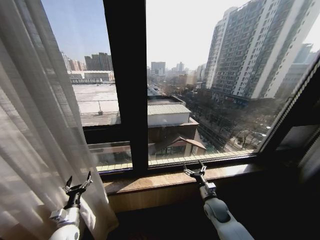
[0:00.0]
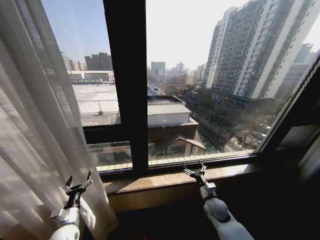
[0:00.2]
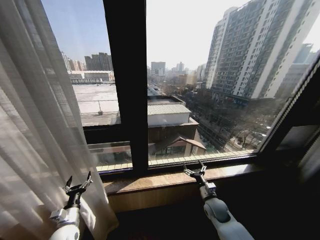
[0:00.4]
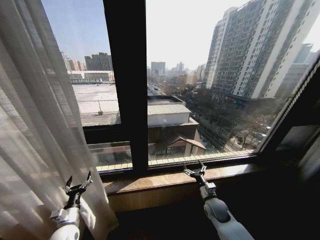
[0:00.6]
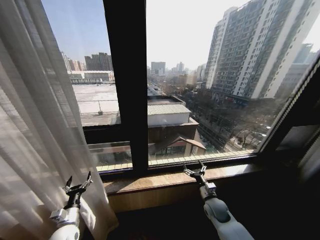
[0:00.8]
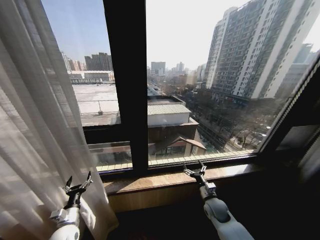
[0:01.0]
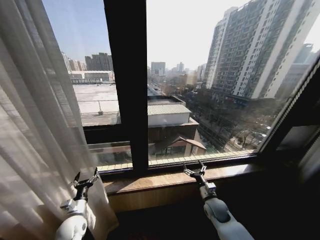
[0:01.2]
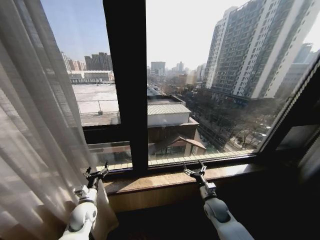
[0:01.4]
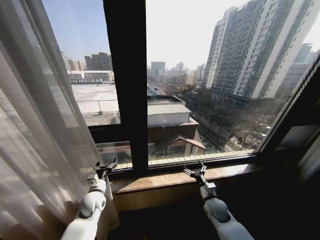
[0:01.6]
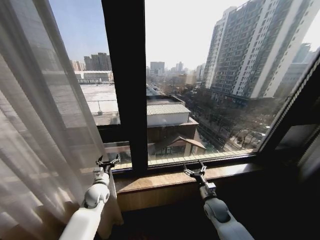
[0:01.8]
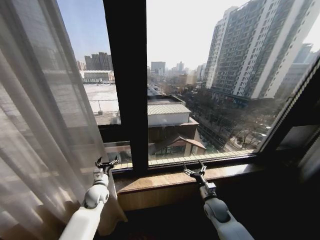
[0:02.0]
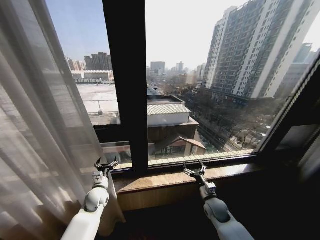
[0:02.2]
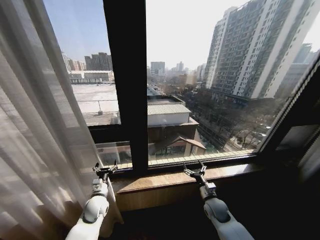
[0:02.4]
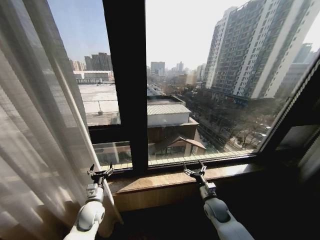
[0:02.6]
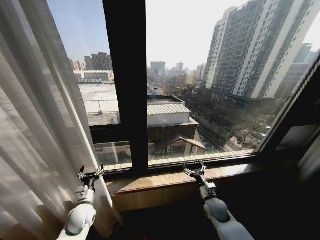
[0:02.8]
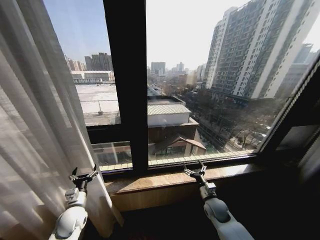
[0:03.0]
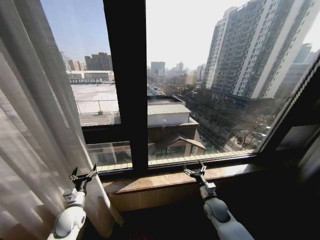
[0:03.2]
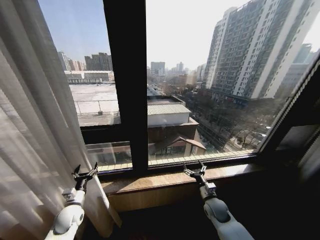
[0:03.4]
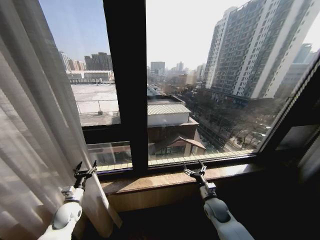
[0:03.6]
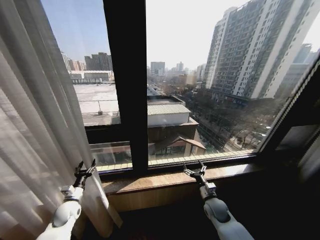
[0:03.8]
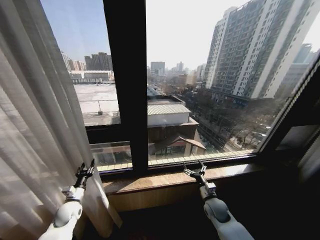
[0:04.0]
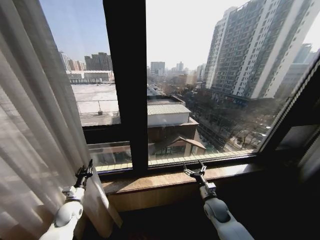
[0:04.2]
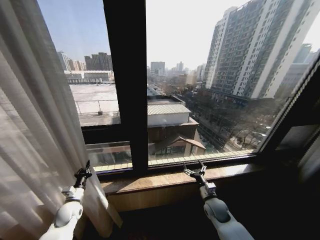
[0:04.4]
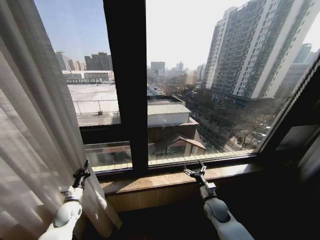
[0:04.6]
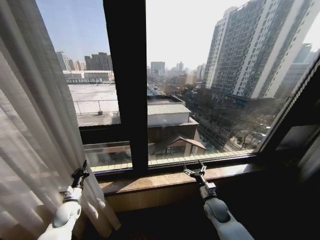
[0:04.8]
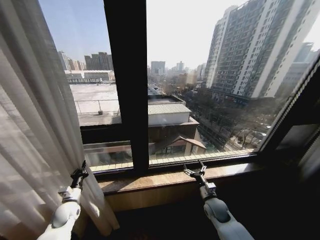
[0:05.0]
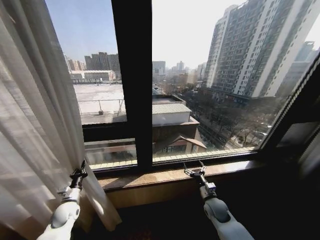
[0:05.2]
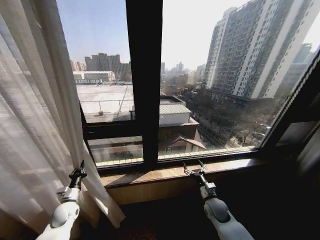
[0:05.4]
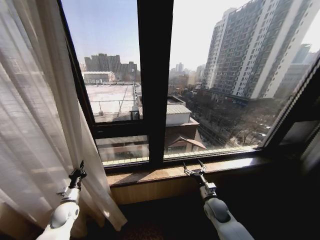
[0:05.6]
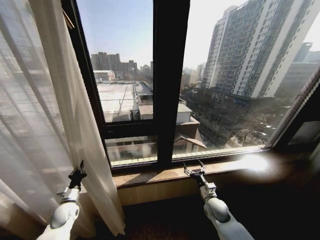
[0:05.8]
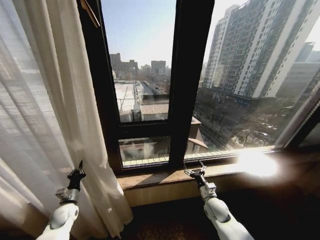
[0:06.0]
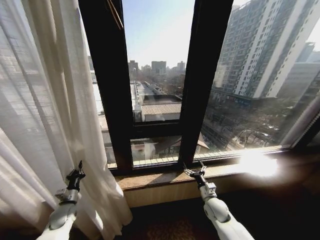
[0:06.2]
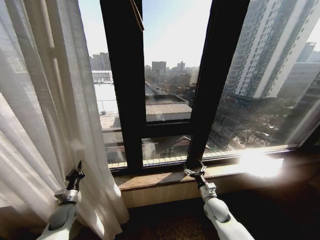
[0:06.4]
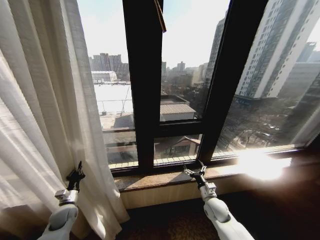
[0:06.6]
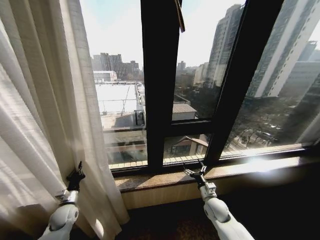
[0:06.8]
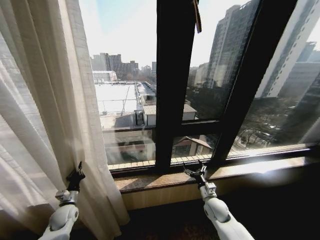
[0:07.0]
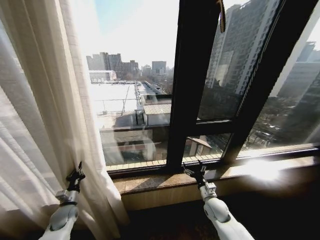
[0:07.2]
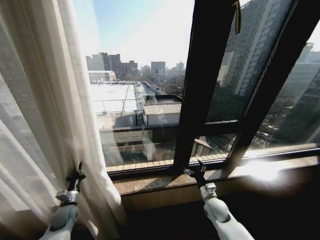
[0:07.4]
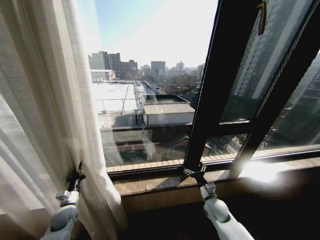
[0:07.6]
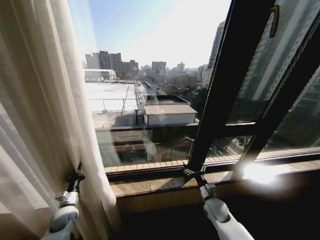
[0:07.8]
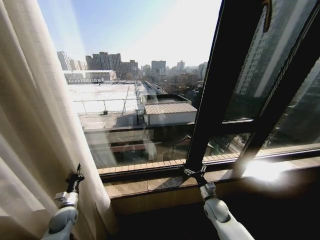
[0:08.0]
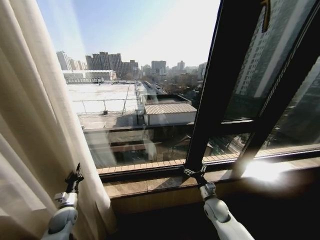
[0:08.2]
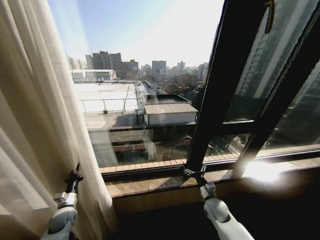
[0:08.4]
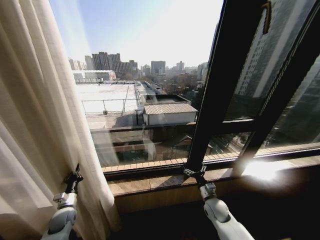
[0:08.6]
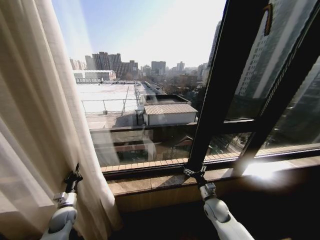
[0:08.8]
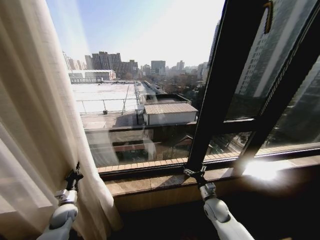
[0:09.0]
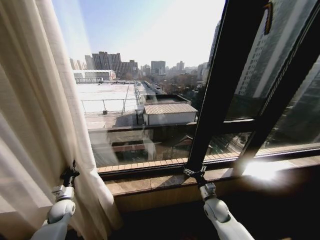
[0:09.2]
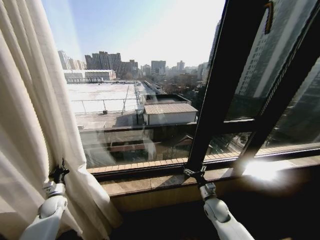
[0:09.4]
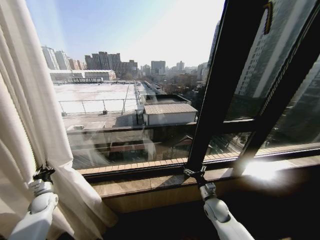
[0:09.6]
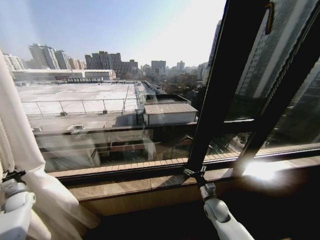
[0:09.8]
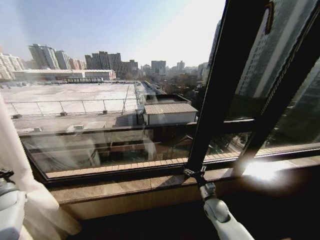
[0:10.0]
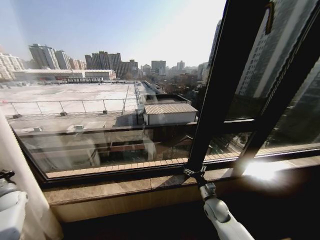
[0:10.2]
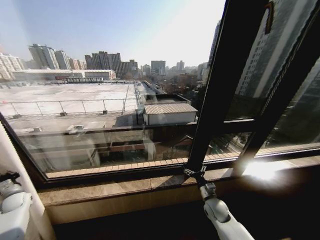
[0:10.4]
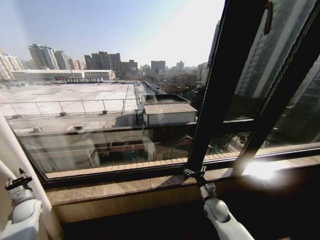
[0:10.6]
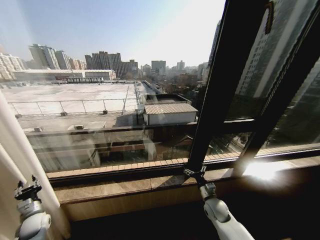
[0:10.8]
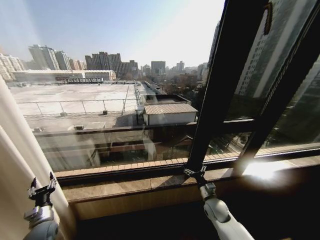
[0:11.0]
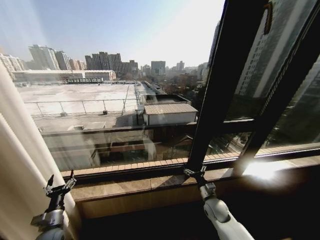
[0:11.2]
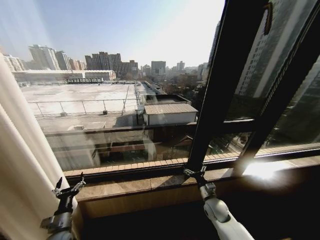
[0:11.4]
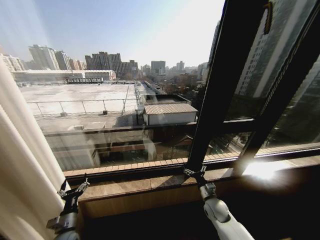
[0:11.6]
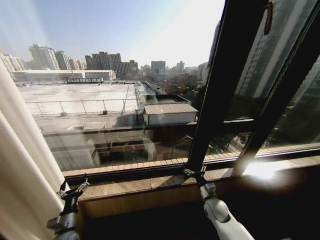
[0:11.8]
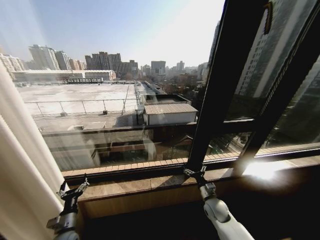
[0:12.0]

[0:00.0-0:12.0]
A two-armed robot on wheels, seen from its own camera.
Task of the whole recording: Open the curtains by pulling them apart, changing their state from closed to fully open.
0:00.0 to 0:01.6: The left gripper goes some 15 cm forward, to the right and upward.
0:01.6 to 0:03.0: The left gripper is displaced backward and to the left by about 5 cm.
0:03.0 to 0:04.4: The left gripper shifts about 5 cm to the left, and closes up.
0:09.0 to 0:10.4: The left gripper shifts some 25 cm to the left.
0:10.4 to 0:12.0: The left gripper heads to the right and backward, covering approximately 30 cm, and opens up.

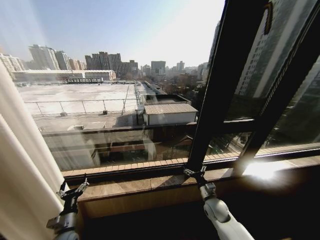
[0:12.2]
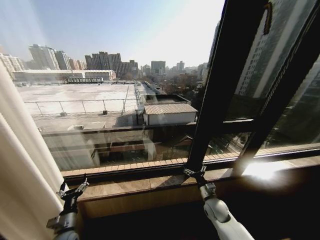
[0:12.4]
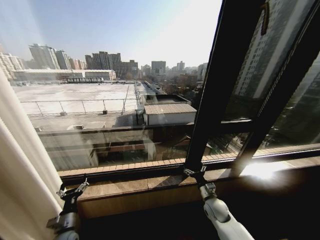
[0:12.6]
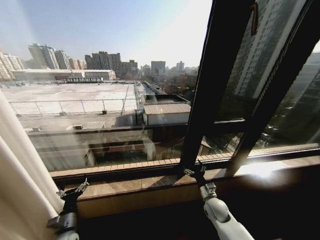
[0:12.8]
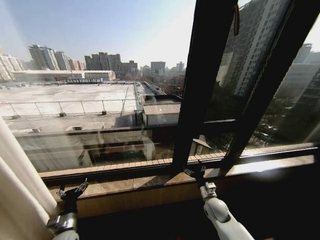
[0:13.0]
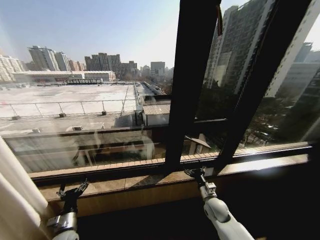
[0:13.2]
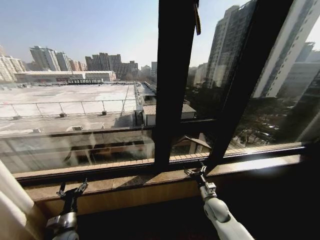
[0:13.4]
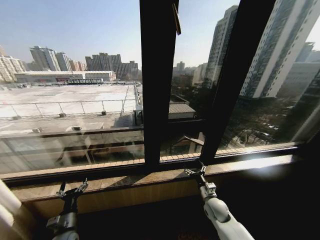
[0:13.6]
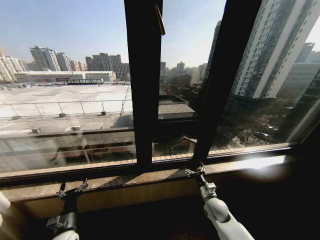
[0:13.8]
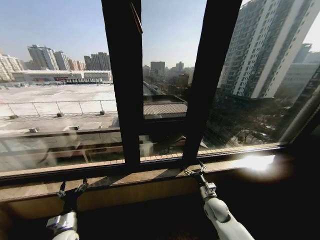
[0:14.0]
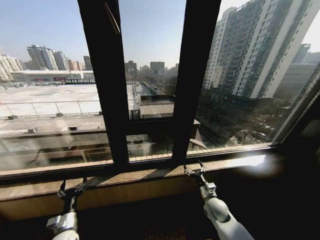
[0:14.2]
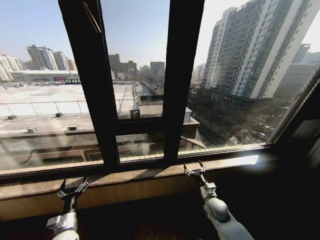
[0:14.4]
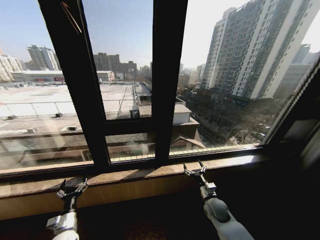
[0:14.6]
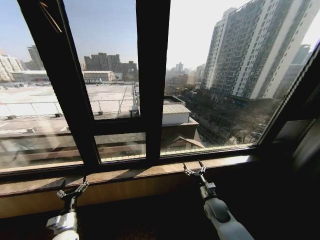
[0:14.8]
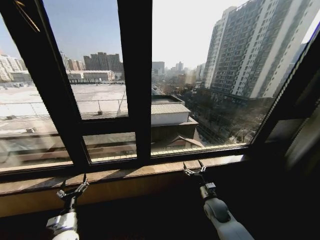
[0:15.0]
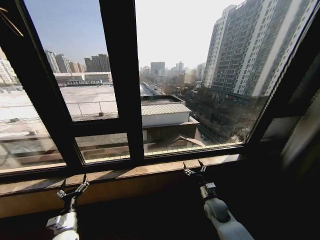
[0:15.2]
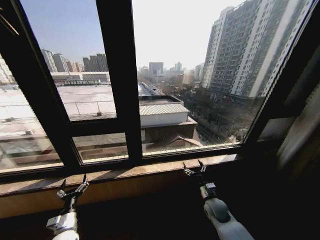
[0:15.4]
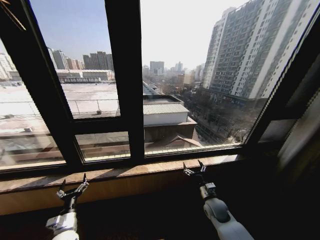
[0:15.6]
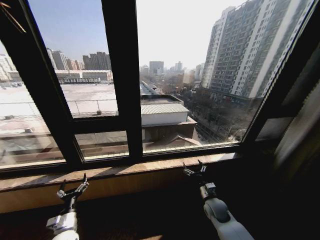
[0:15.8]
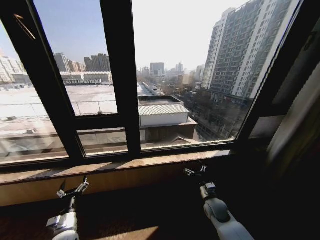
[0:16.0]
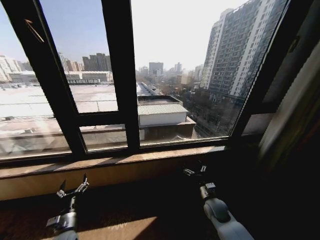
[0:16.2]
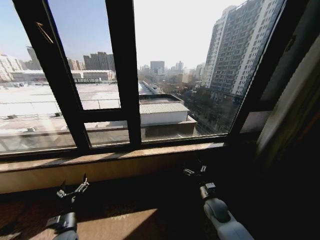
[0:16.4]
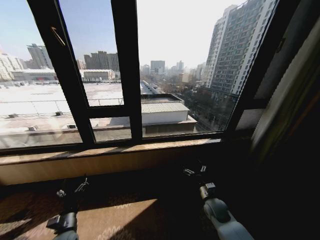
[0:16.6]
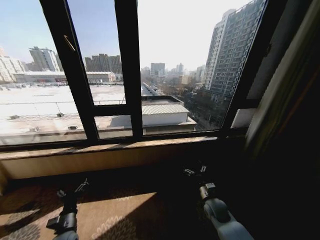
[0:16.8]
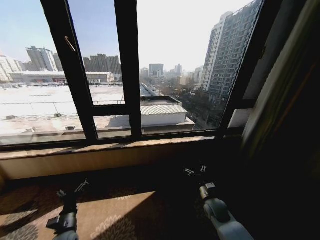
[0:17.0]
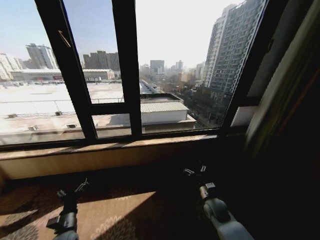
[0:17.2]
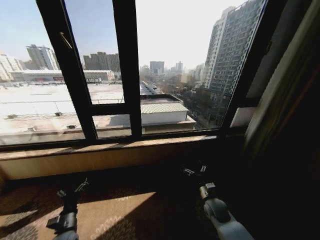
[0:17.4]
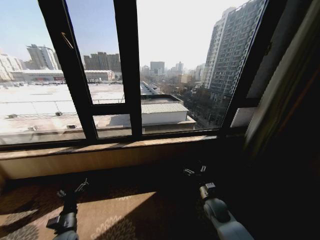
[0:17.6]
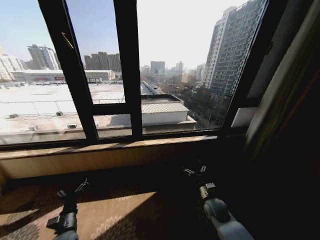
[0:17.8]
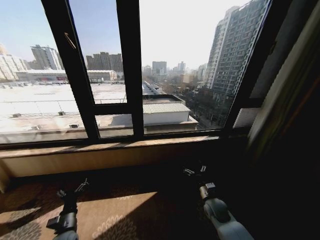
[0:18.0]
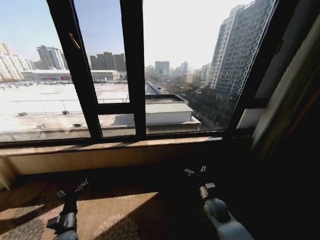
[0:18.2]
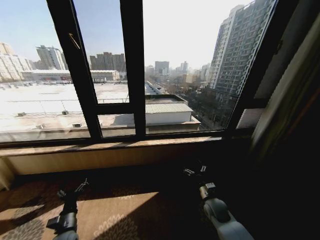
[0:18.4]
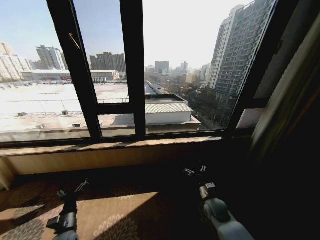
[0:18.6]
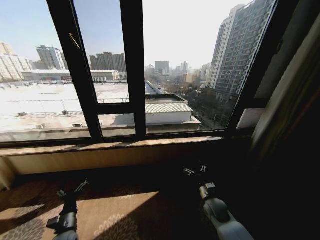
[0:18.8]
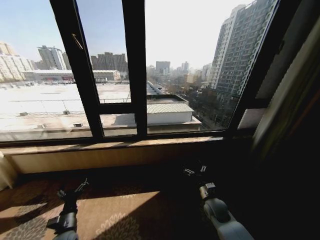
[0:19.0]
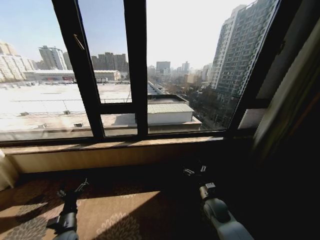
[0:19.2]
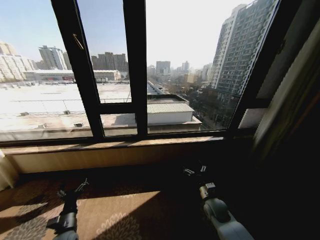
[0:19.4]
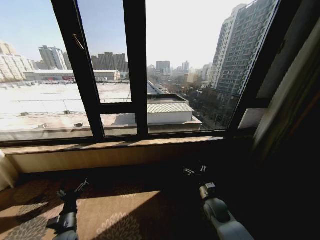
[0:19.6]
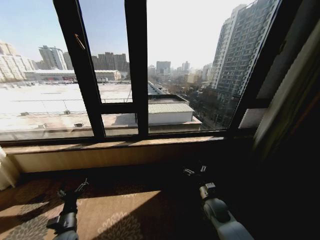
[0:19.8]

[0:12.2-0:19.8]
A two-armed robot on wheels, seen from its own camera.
Task of the whole recording: Open the curtains by pulling them apart, changing their state from closed to fully open.
0:18.2 to 0:19.8: Both grippers stay put.

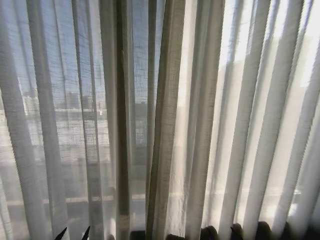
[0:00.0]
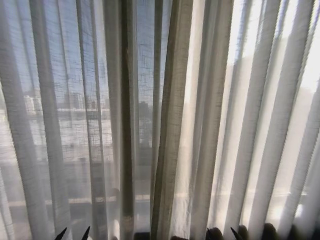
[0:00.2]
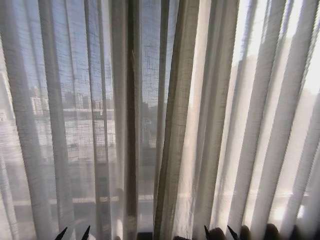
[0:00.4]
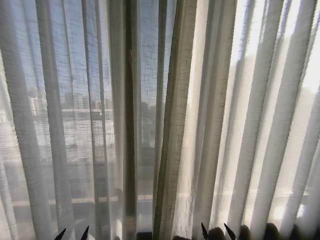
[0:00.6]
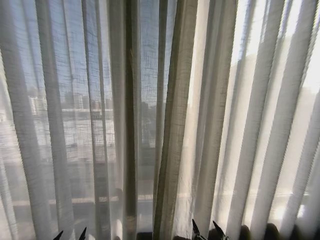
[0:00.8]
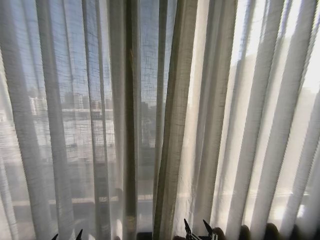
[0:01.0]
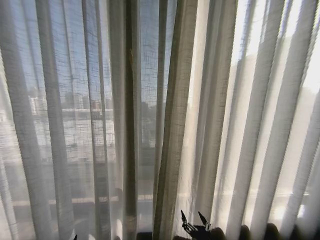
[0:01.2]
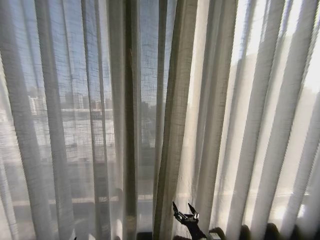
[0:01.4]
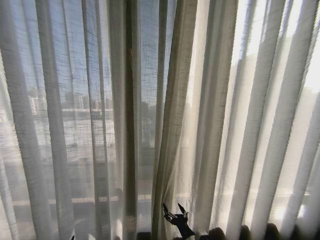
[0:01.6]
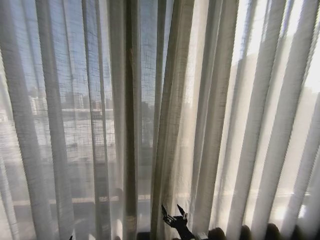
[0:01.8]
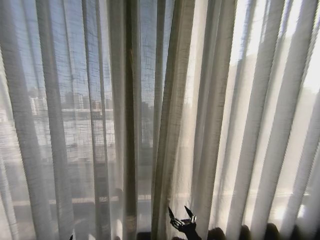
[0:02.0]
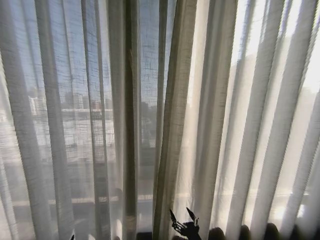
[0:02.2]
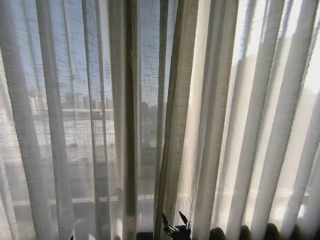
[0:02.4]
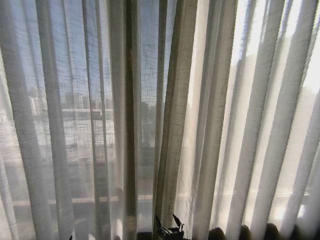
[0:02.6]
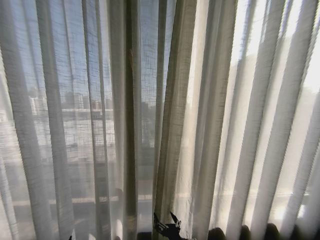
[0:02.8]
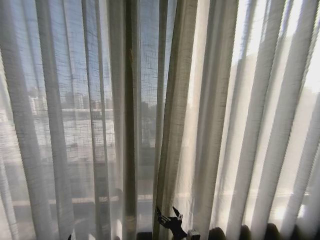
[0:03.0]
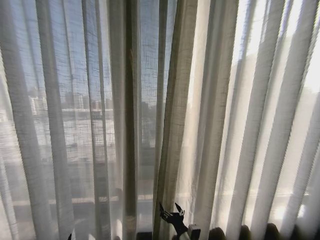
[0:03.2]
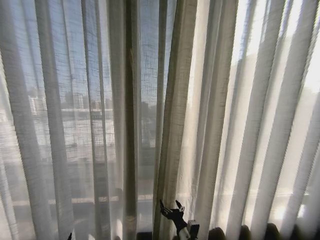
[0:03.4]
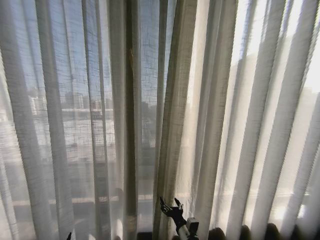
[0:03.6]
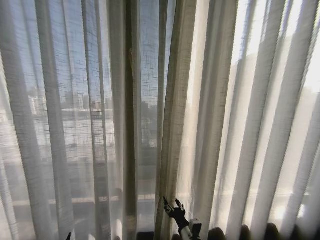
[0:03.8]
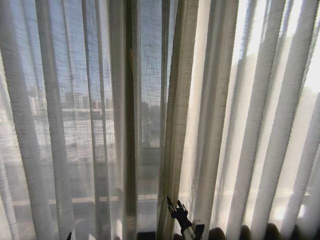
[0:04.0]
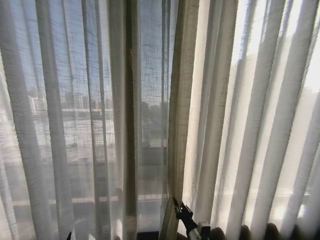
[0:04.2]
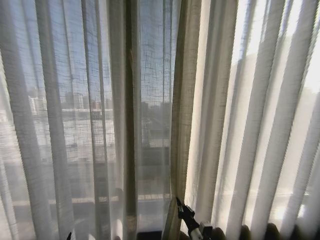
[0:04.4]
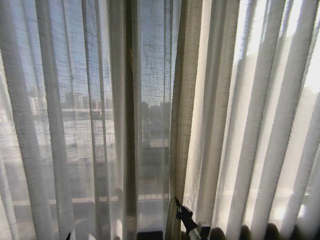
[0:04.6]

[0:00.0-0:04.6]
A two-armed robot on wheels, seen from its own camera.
Task of the whole recording: Open the curtains by pulling them apart, changing their state from closed to fully open.
0:00.0 to 0:01.6: The right gripper moves forward and to the left, approximately 20 cm.
0:03.0 to 0:04.6: The right gripper moves some 5 cm, and closes up.
